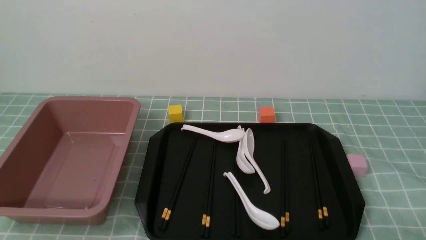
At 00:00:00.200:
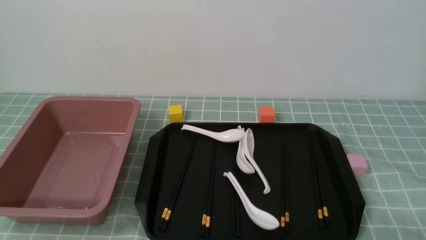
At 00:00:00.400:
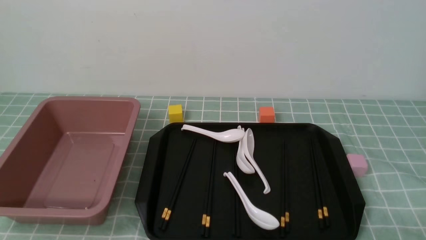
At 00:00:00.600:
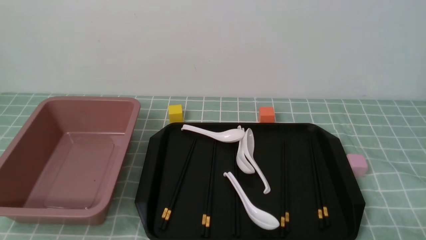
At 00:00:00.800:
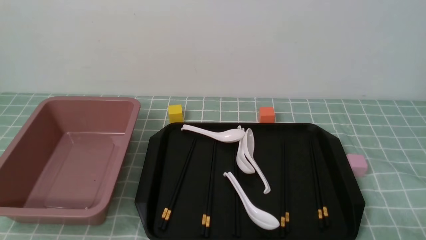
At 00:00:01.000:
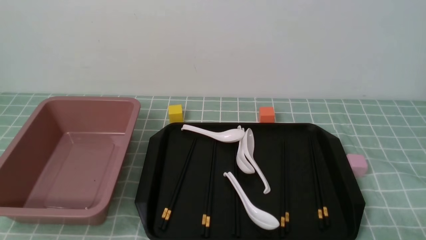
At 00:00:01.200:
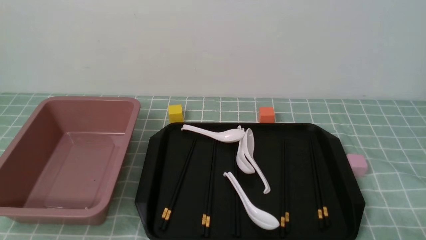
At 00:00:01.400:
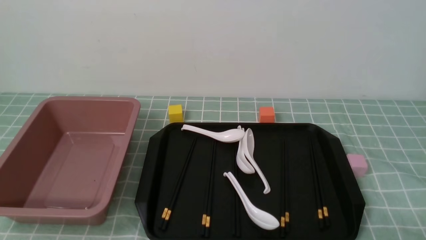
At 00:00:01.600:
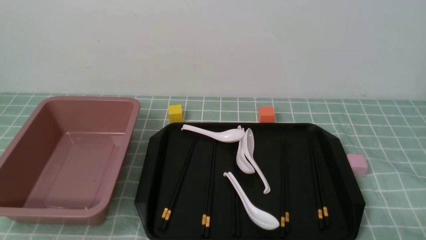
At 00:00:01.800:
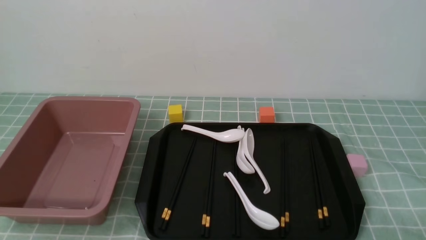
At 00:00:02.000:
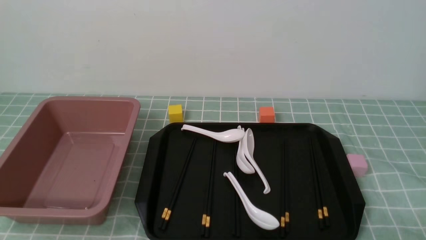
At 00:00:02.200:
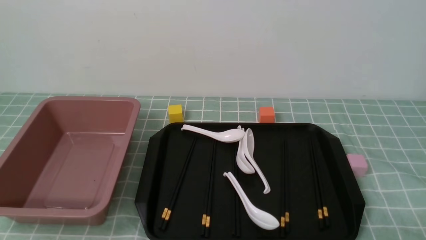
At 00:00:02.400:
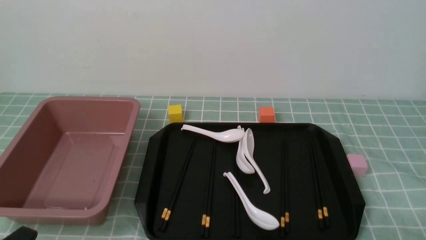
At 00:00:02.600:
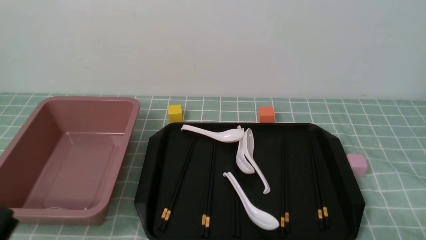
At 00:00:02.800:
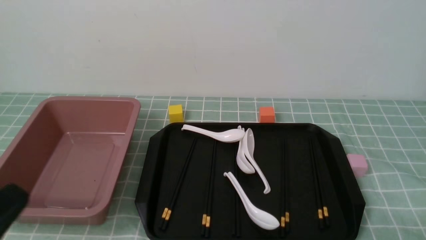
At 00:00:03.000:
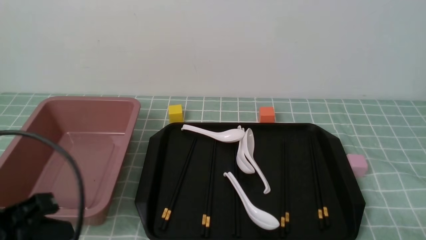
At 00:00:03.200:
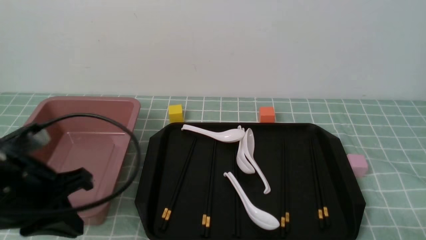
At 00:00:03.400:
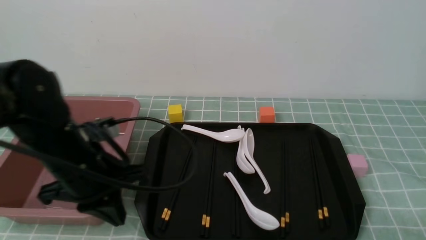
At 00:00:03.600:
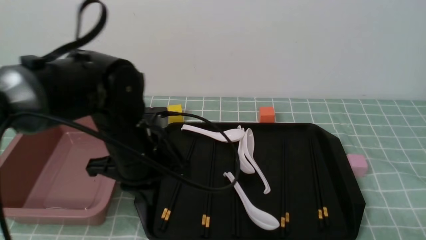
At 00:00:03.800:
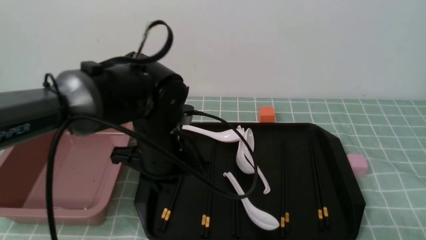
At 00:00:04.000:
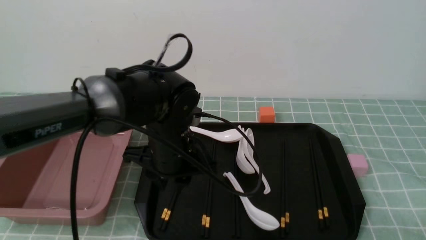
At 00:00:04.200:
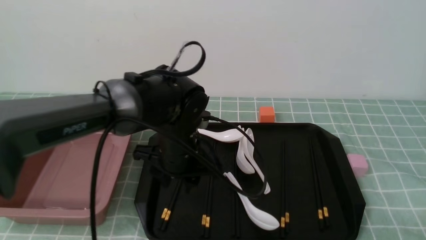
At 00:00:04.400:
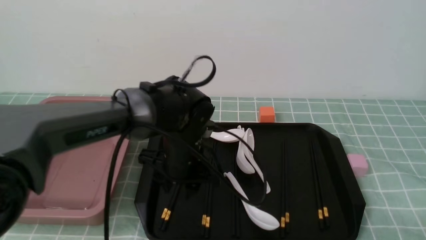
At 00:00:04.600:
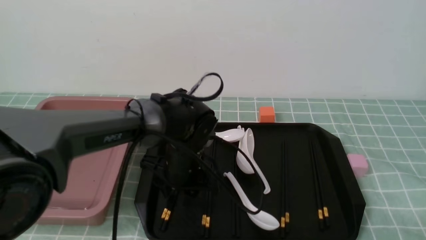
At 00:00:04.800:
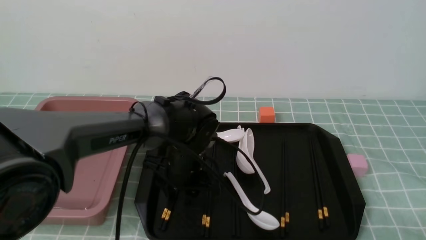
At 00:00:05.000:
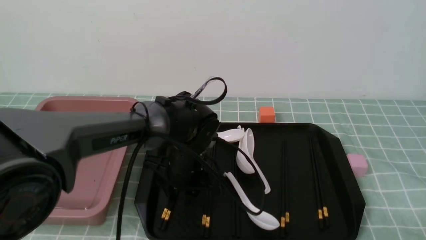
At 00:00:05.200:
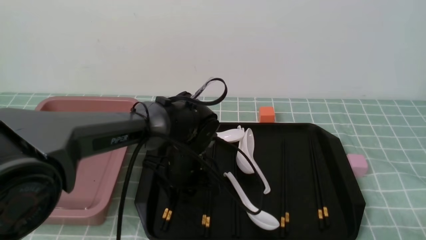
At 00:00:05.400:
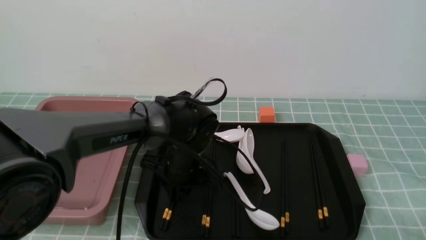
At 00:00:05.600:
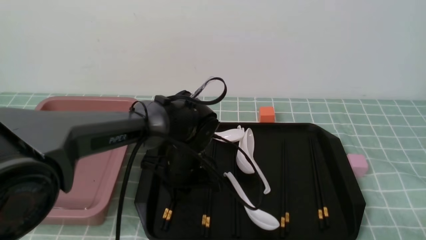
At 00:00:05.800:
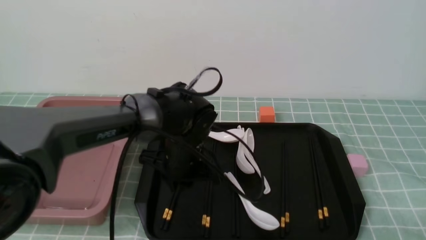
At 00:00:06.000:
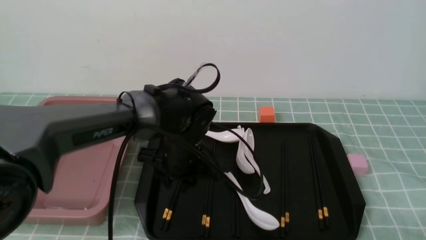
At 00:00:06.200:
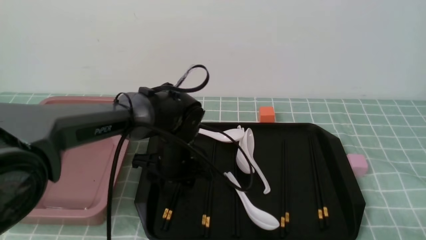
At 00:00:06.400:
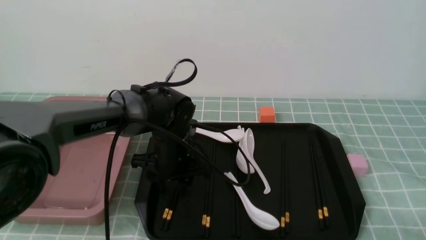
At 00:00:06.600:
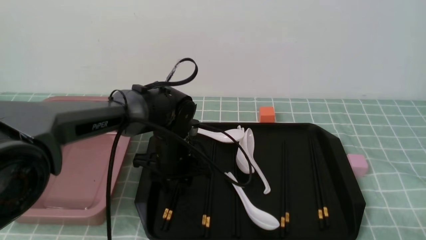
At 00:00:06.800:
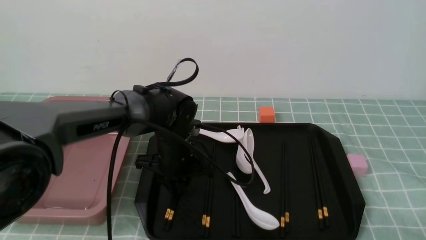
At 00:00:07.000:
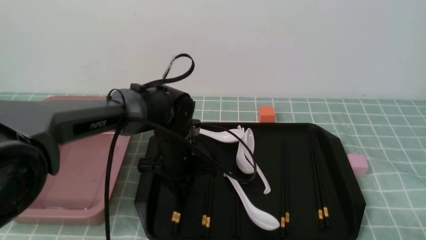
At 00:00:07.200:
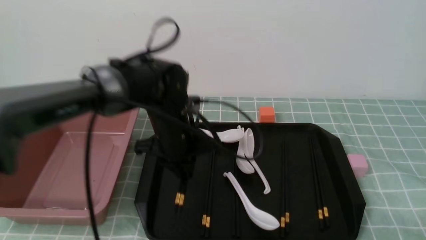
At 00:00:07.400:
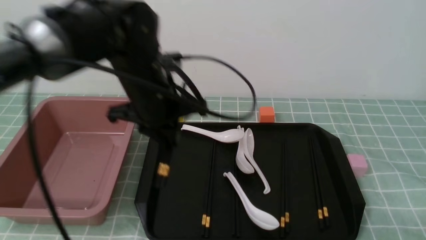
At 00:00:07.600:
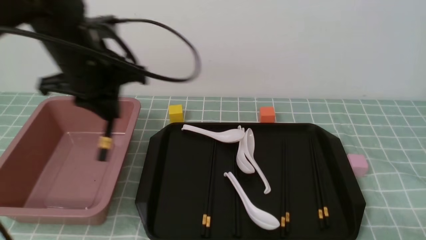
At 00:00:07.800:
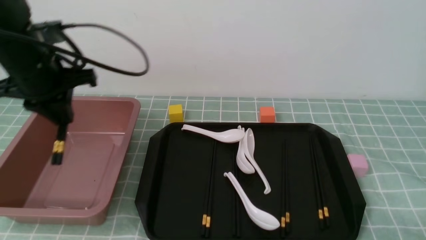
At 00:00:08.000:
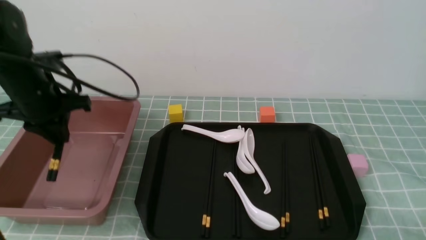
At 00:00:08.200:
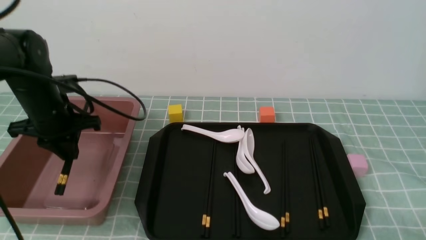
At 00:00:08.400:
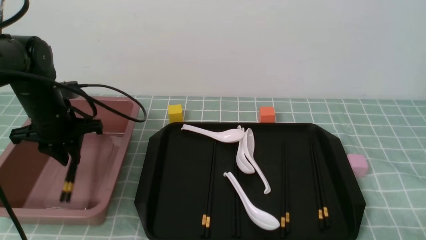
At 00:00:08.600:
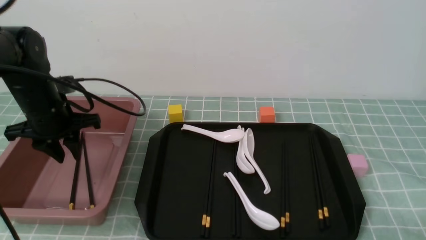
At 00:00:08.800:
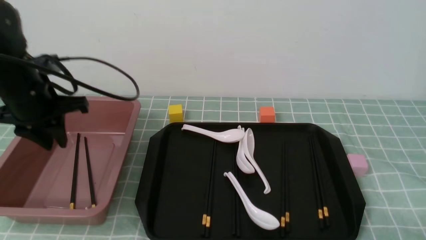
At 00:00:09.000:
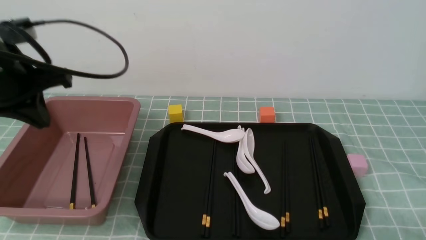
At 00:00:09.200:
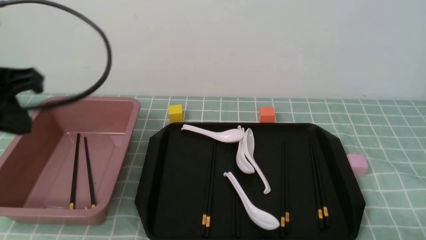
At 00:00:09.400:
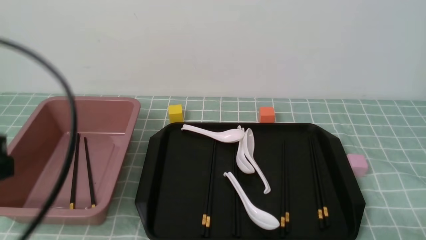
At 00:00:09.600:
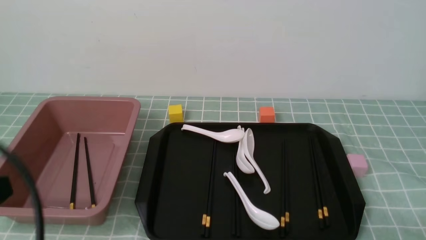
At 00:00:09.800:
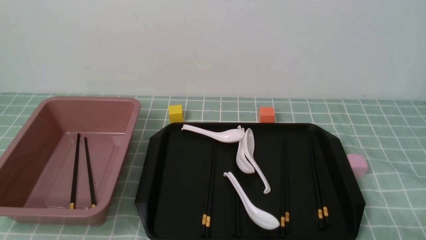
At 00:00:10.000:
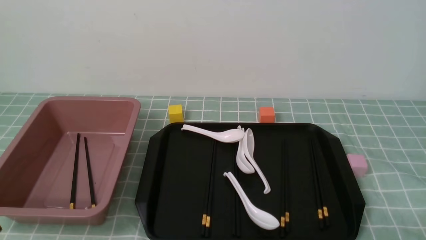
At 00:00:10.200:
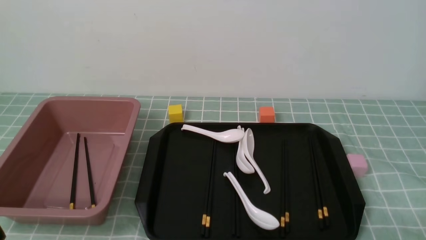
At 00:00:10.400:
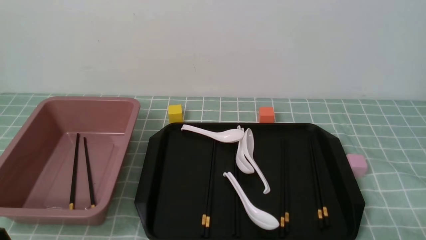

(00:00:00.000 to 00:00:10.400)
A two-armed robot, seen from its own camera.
Step, 00:00:00.000 - 00:00:07.200: use the left arm to grab a pair of chopsticks.
Step, 00:00:07.600 - 00:00:08.800: use the left arm to put the chopsticks into the lunch box.
00:00:00.000 - 00:00:01.400: Both grippers stay about where they are.
00:00:01.400 - 00:00:03.000: The left gripper shifts some 15 cm upward and forward, and closes up.
00:00:03.000 - 00:00:04.400: The left gripper shifts approximately 30 cm forward, to the right and downward, and opens its fingers.
00:00:04.400 - 00:00:06.000: The left gripper closes and opens again.
00:00:06.000 - 00:00:07.400: The left gripper goes roughly 15 cm upward and to the left, and closes up.
00:00:07.400 - 00:00:09.000: The left gripper goes approximately 15 cm to the left, backward and upward.
00:00:09.000 - 00:00:10.400: The left gripper moves backward and downward, roughly 25 cm.

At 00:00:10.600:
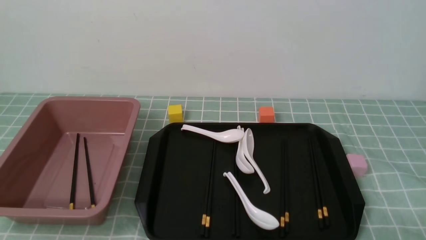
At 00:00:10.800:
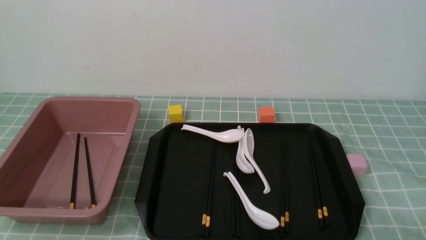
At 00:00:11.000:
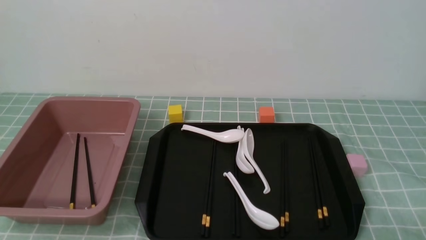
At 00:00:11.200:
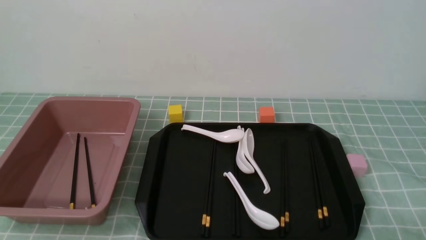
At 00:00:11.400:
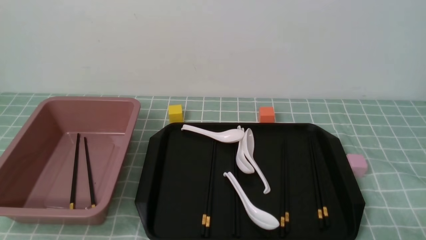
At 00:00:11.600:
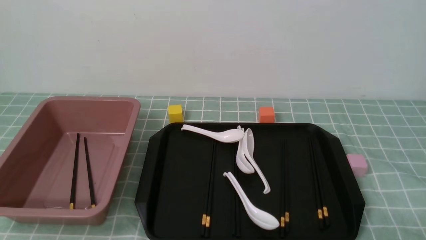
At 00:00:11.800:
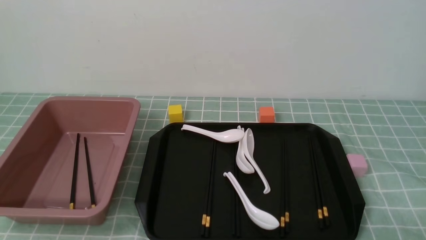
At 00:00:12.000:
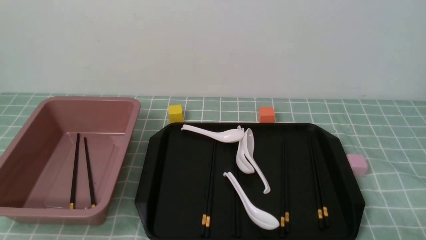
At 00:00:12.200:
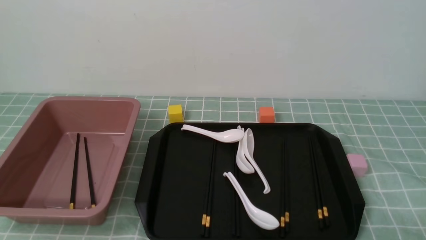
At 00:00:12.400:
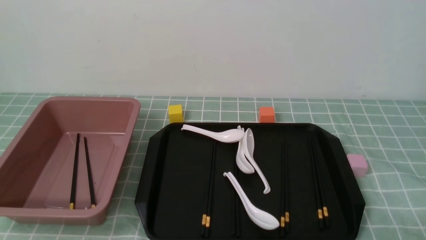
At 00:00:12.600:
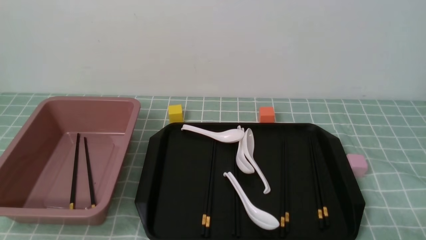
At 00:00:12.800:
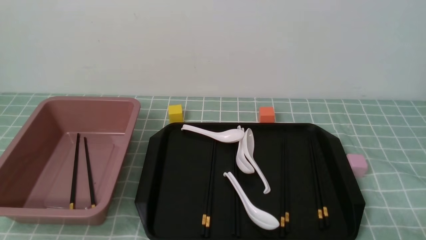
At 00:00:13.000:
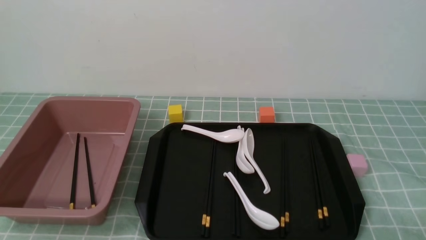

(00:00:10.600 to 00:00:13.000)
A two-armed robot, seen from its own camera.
00:00:11.800 - 00:00:13.000: Both grippers stay about where they are.
